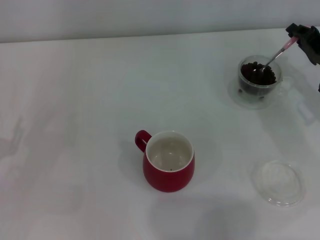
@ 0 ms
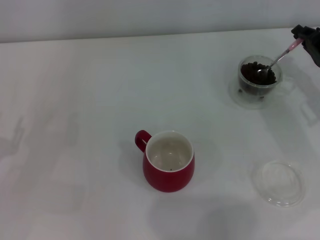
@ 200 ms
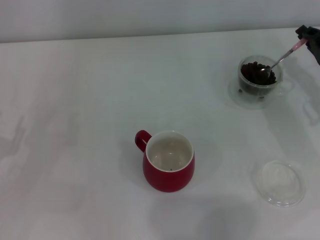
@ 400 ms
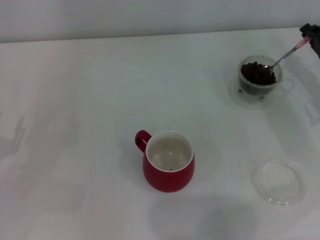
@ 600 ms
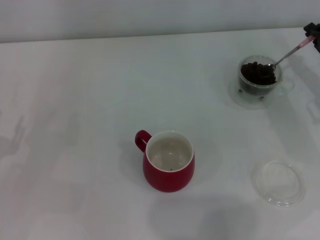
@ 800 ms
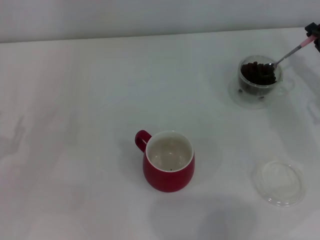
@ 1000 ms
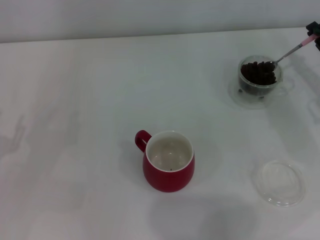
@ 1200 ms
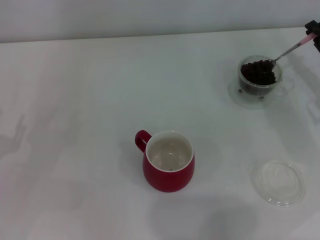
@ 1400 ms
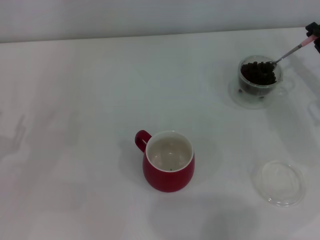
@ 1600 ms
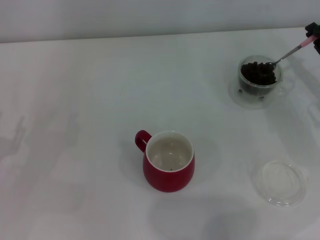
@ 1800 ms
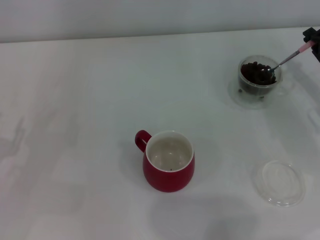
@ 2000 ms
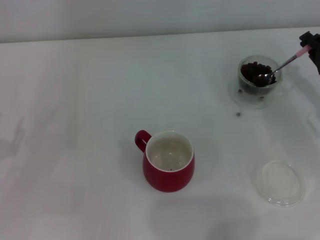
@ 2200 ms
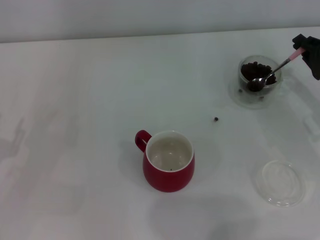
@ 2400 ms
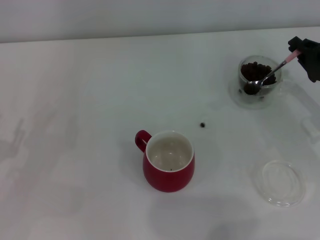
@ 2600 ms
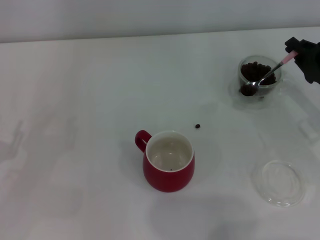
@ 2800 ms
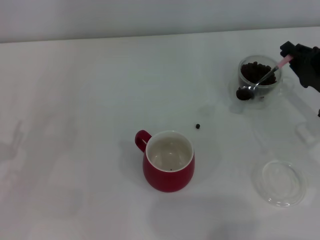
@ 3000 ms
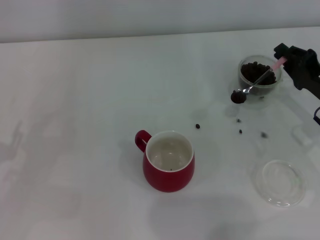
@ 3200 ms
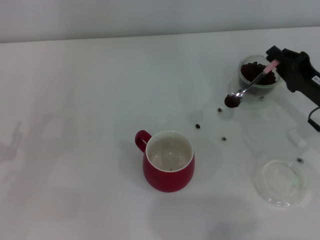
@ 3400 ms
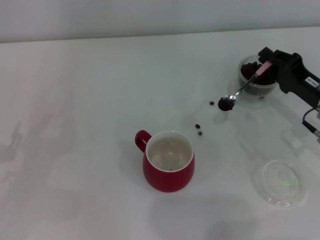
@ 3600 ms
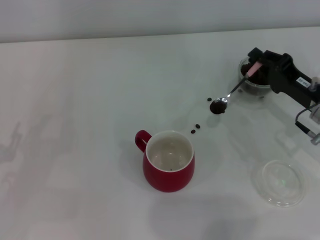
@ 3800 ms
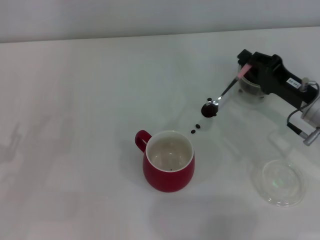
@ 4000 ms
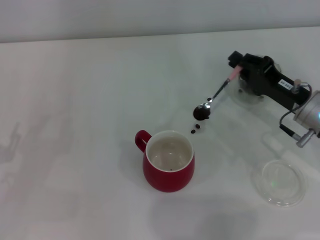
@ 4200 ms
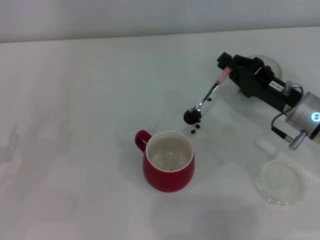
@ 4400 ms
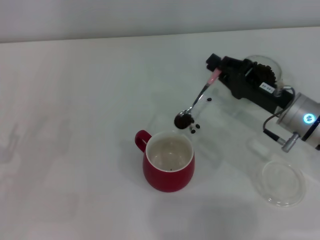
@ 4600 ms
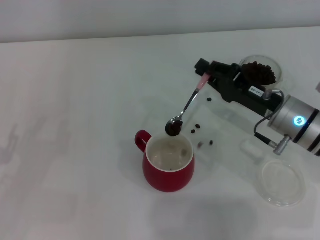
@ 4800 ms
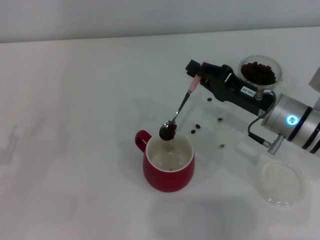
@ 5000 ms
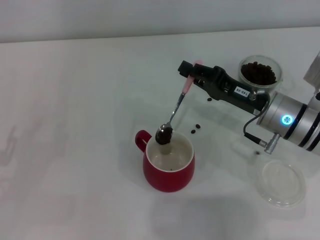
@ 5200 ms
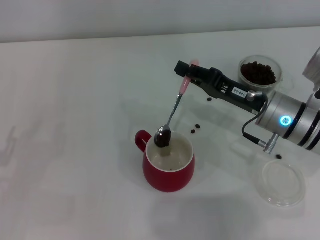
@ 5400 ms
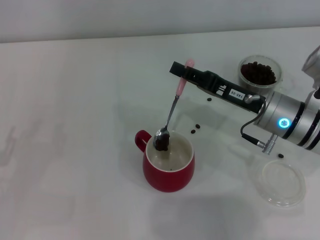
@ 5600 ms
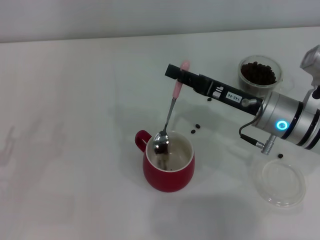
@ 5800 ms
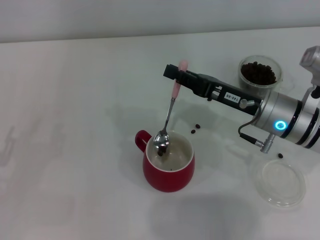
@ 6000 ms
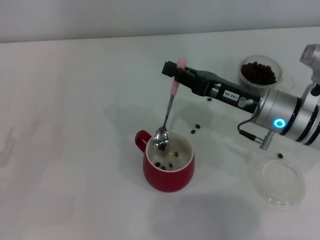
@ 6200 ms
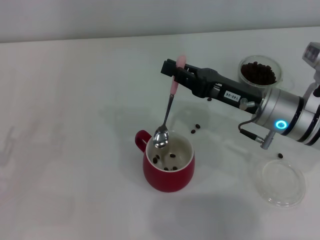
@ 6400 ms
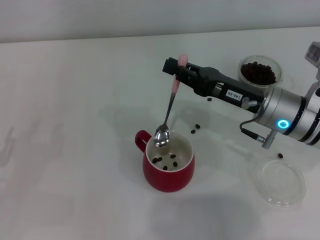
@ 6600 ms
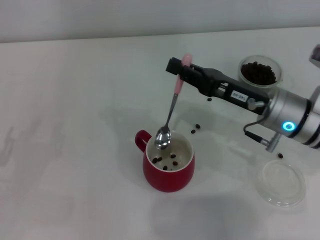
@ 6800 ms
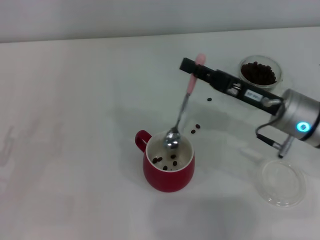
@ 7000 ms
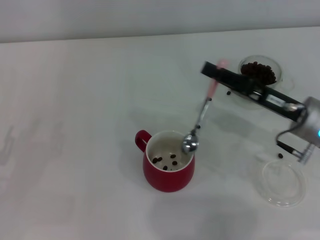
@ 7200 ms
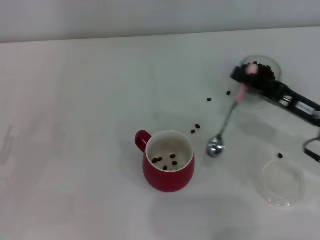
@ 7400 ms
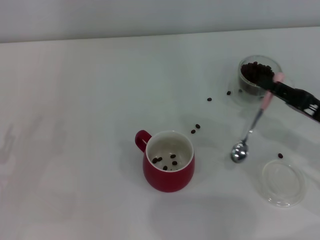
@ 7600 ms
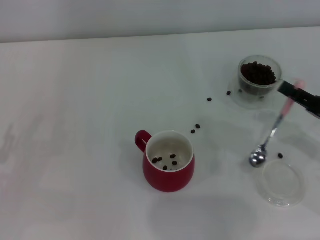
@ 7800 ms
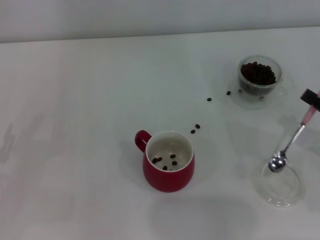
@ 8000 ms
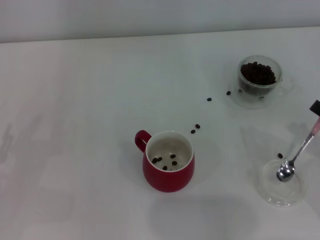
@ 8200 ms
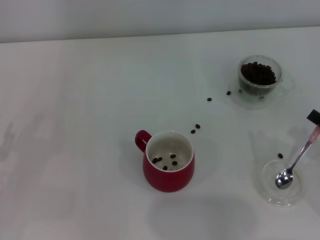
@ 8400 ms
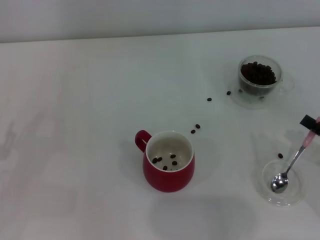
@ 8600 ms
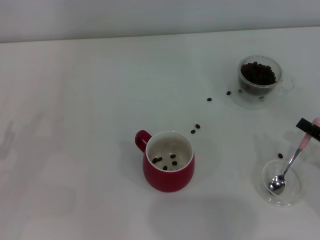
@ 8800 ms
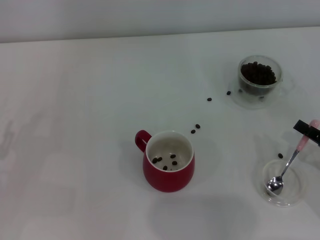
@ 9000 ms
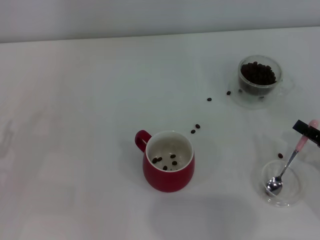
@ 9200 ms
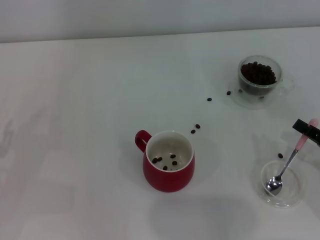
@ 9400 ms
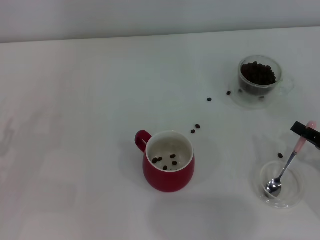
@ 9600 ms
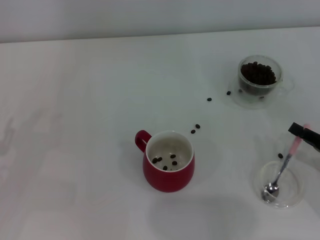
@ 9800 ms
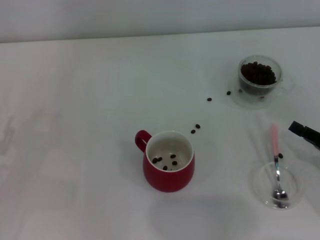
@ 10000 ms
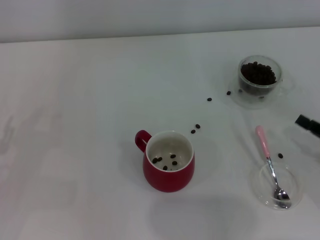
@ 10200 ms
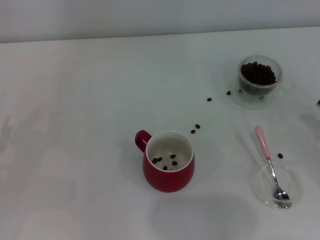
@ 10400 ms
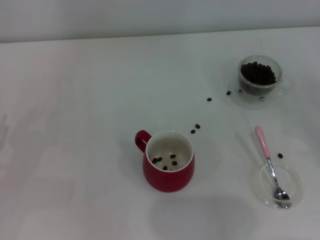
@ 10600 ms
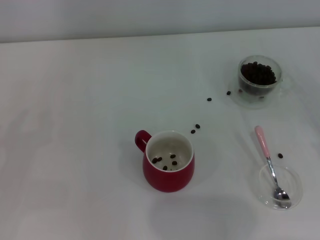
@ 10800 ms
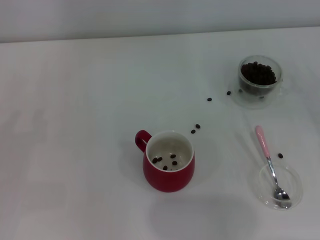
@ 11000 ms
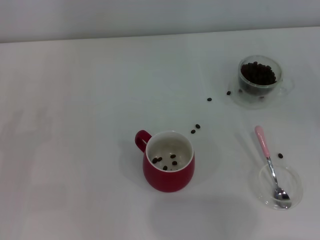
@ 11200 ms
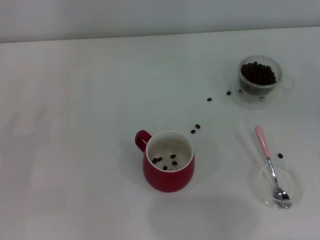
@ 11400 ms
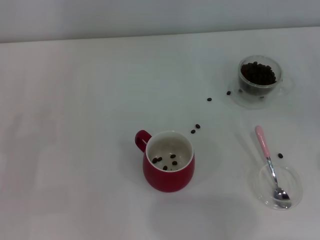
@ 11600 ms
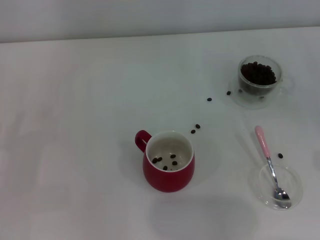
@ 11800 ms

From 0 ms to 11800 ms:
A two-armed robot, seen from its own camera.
Task of the whole recording: Use a pink spoon to take out the coffee beans from the glass and pour them into the red cup.
Step, from 0 ms to 7000 ms: Scoop a spoonful of beans into the cup with the right gripper.
Step, from 7400 ms to 10000 ms: Place the spoon back in its original place with the right gripper.
From 0 ms to 1400 ms: The grippers make only small movements.
From 1400 ms to 3000 ms: The right gripper changes place by about 5 cm.
From 3000 ms to 4400 ms: The right gripper goes some 5 cm to the left.
From 4400 ms to 6000 ms: The right gripper goes roughly 5 cm to the left.
From 6000 ms to 7400 ms: The right gripper shifts some 10 cm to the right.
From 7400 ms to 8800 ms: The right gripper shifts some 10 cm backward and to the right.
From 8800 ms to 10400 ms: The grippers make only small movements.
